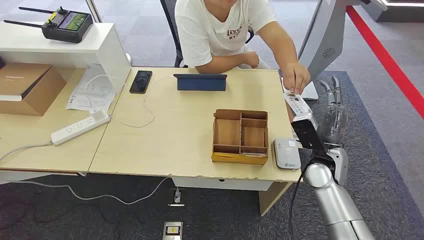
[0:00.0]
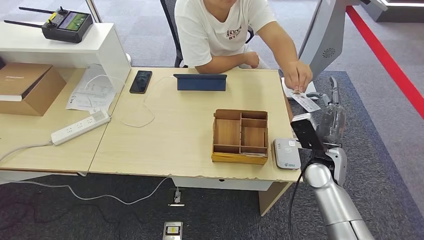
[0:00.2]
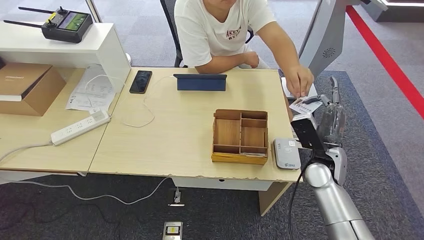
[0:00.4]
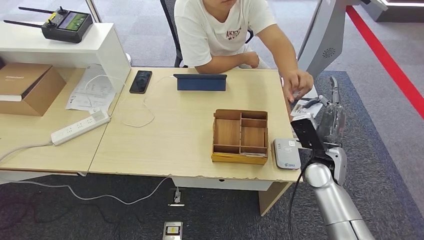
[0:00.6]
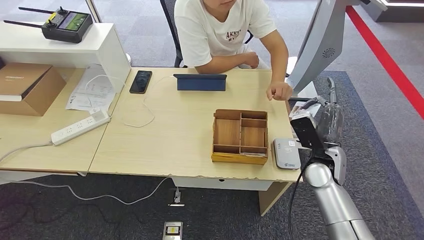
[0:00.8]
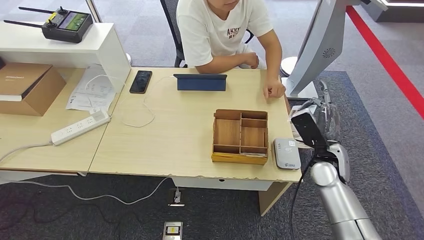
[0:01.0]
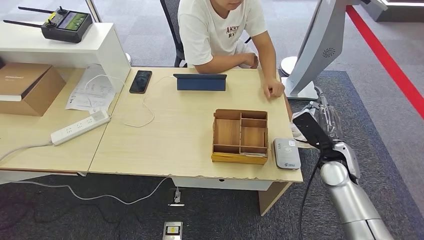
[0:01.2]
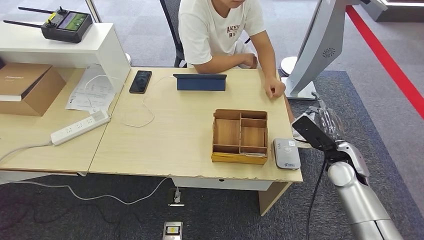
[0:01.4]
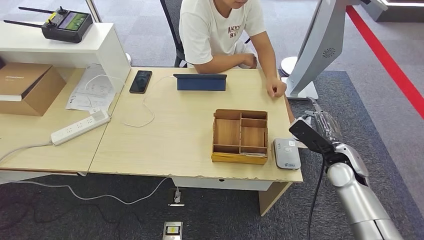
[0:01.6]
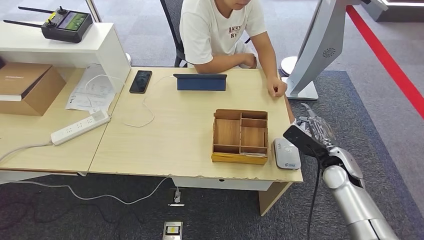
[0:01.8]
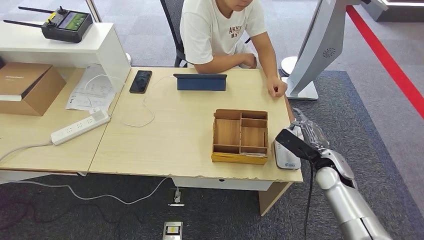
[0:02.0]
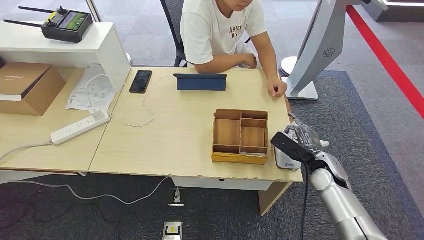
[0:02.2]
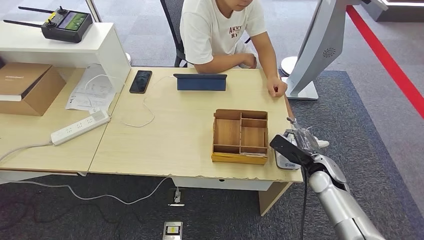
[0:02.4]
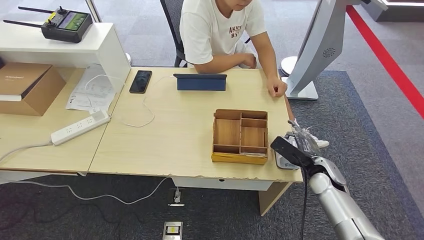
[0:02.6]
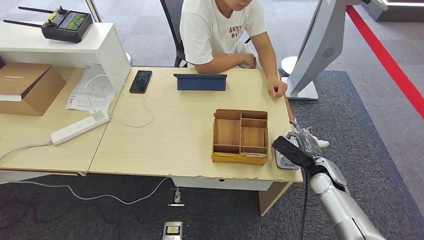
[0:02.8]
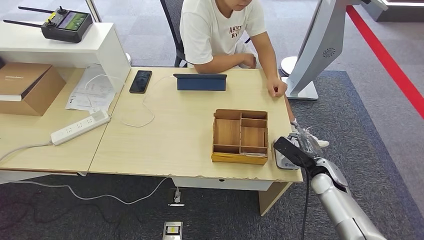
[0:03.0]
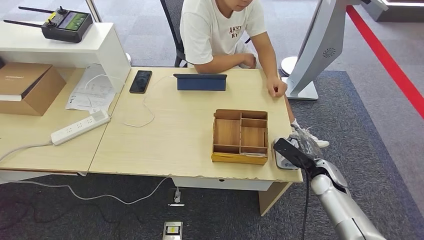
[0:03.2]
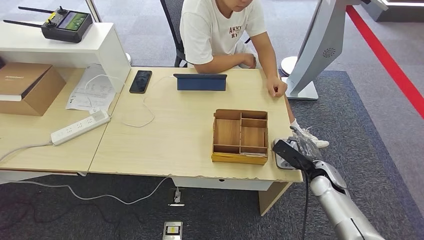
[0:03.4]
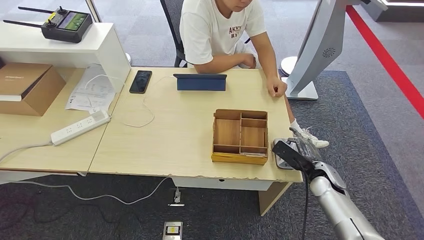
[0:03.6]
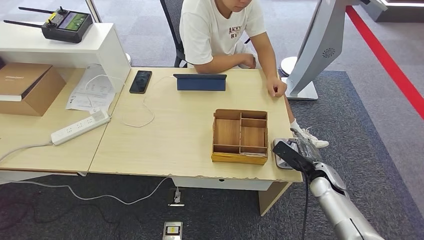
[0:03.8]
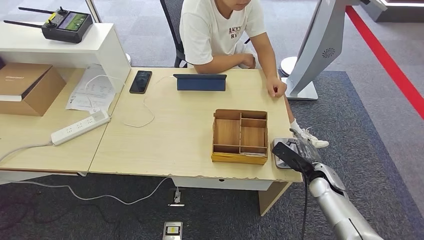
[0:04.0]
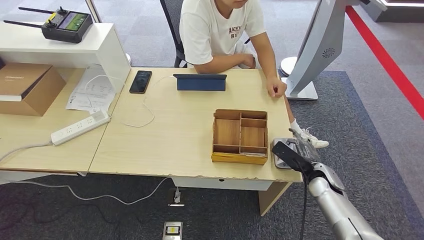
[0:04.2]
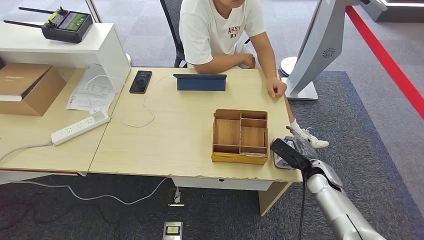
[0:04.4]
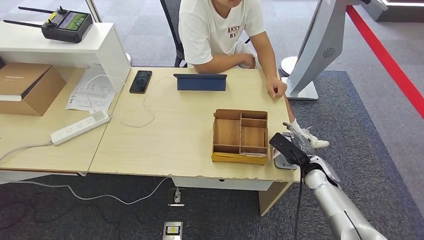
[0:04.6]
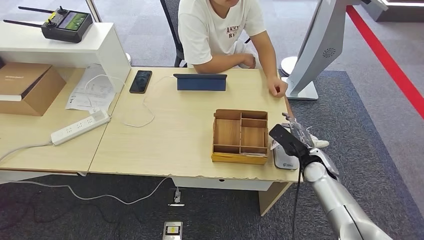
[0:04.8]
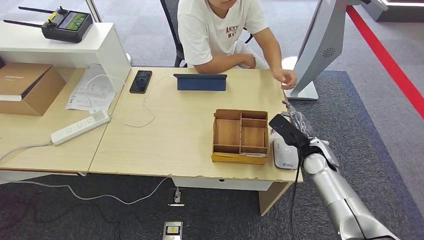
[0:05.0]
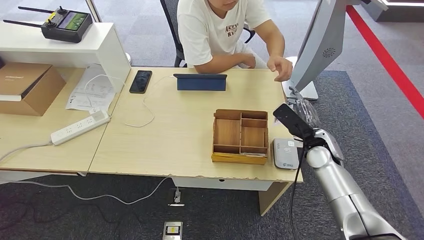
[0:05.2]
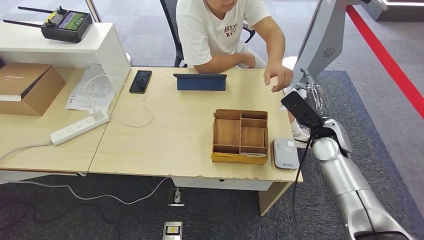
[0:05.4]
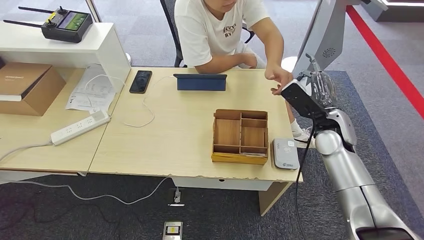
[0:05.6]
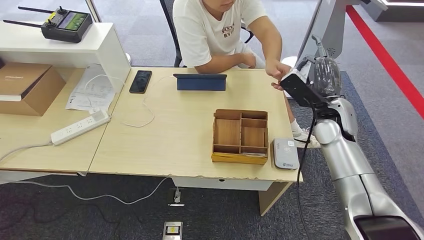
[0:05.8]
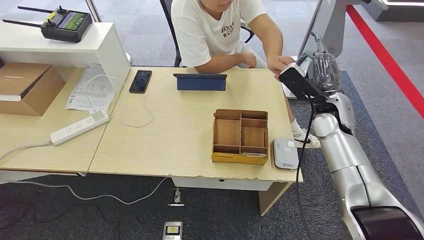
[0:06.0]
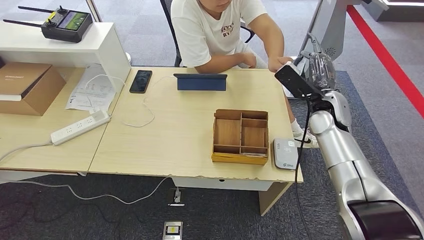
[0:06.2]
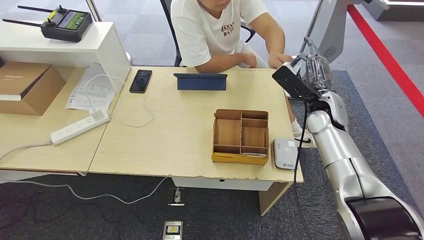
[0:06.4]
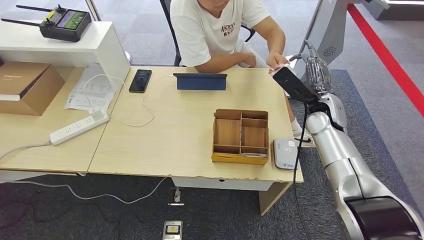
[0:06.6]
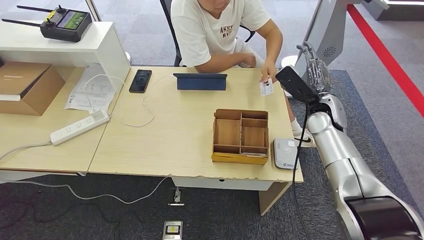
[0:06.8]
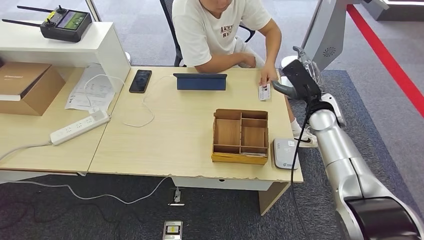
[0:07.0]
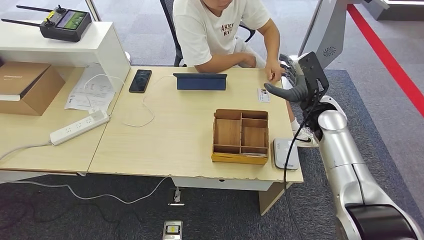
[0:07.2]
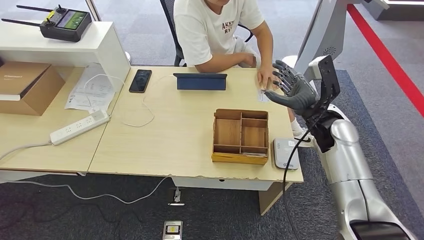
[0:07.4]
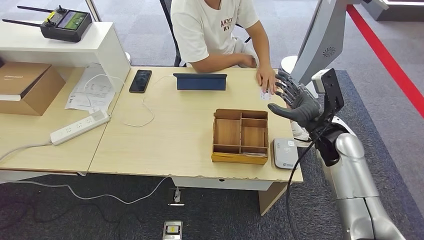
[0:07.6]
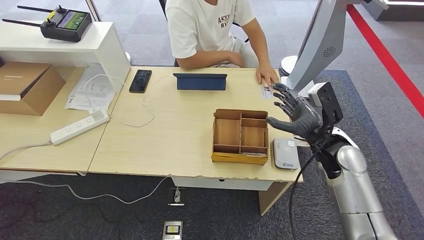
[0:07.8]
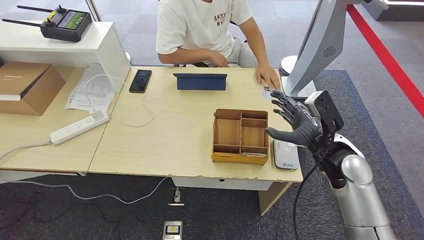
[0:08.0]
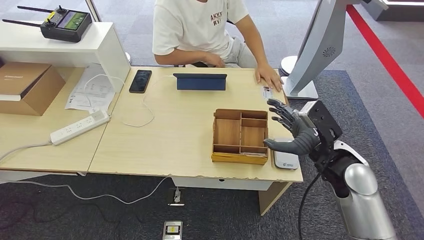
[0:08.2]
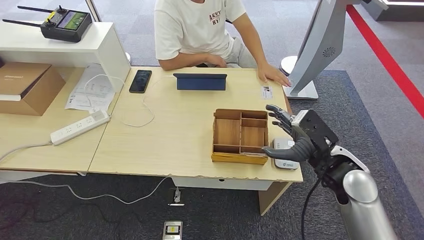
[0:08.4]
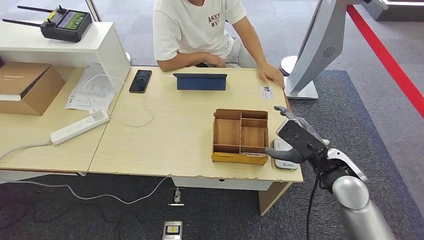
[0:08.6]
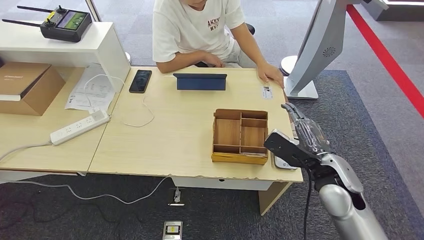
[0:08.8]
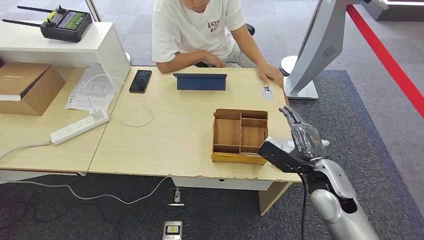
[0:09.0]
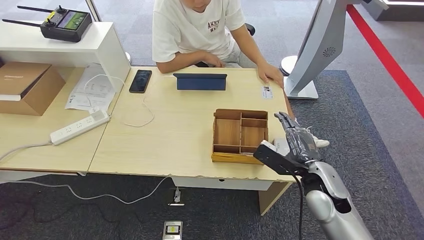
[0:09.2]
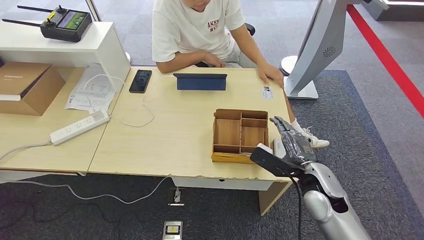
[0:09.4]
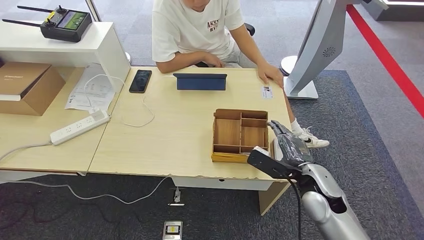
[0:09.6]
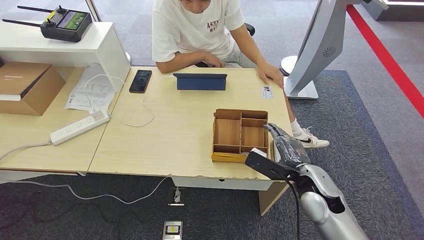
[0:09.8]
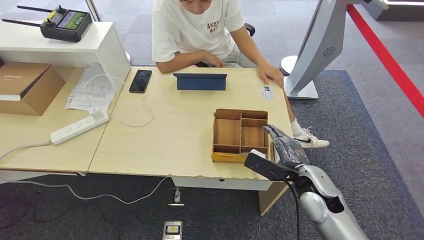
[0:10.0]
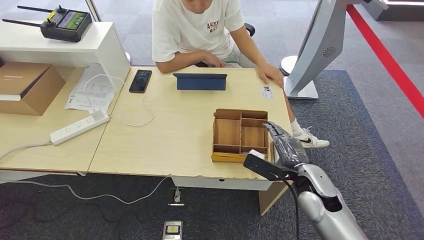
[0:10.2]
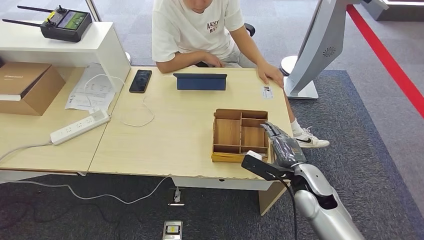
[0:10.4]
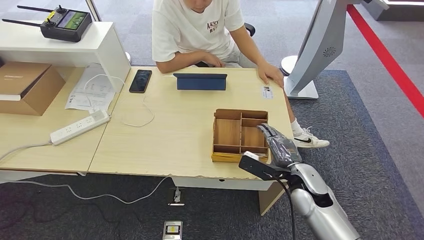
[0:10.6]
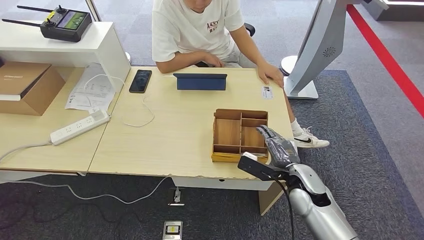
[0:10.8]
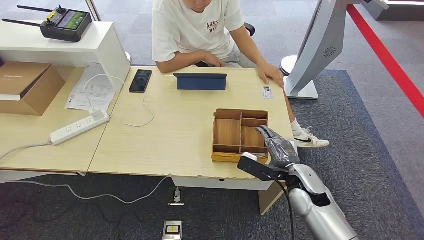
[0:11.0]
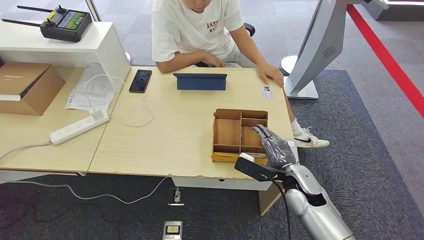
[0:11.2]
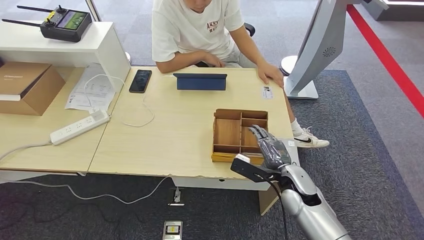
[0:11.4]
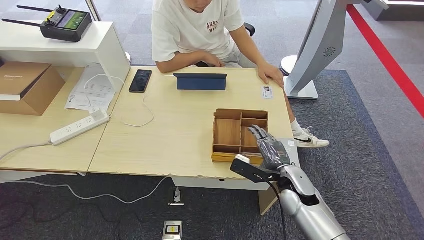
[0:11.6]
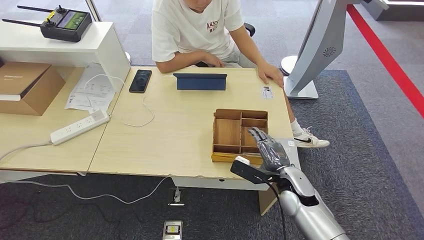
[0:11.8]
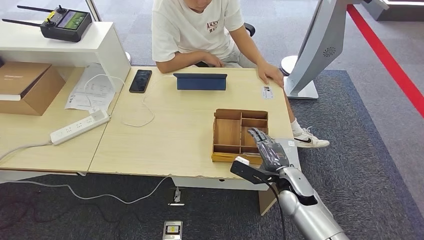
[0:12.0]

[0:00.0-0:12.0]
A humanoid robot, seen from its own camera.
Step, 0:00.0 to 0:01.4: Take the ID card from the person's hand.
Step, 0:01.6 to 0:05.0: Place the ID card on the card reader.
Step, 0:05.2 to 0:07.4: Hand the ID card to the person.
0:01.6 to 0:03.0: The right hand travels downward by about 5 cm.
0:03.0 to 0:04.4: The hands stay close to where they were, moving slightly.
0:04.4 to 0:06.0: The right hand shifts approximately 20 cm upward and forward.
0:06.0 to 0:07.6: The right hand ends up some 5 cm from where it was.
0:07.6 to 0:09.0: The right hand heads backward, covering roughly 10 cm.
0:09.0 to 0:10.4: The right hand changes place by about 5 cm.
0:10.4 to 0:12.0: There are only small adjustments of the hands.

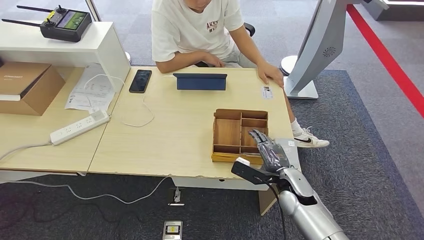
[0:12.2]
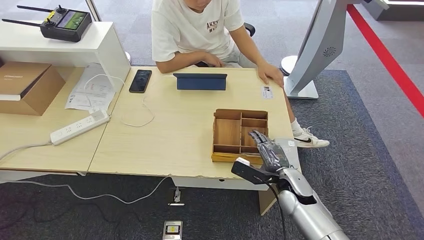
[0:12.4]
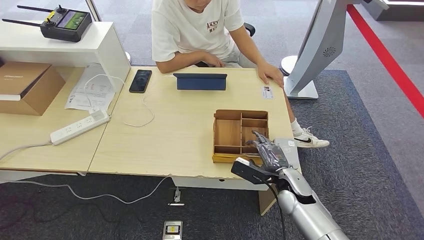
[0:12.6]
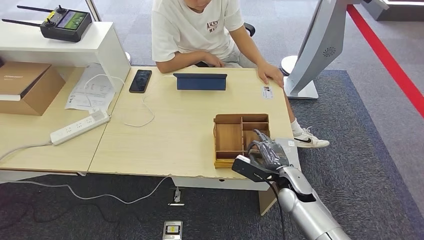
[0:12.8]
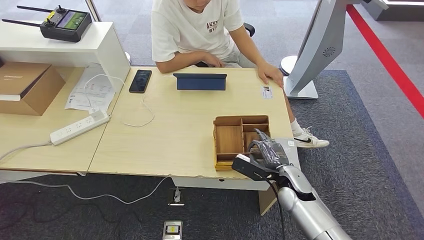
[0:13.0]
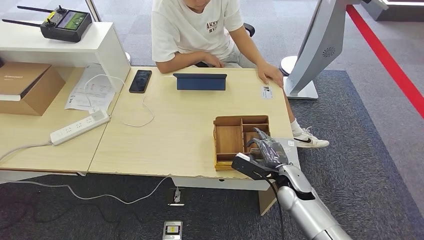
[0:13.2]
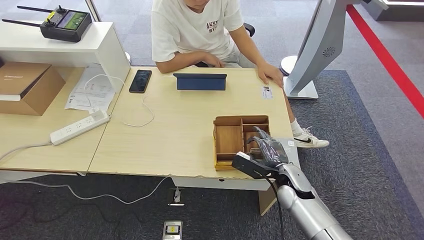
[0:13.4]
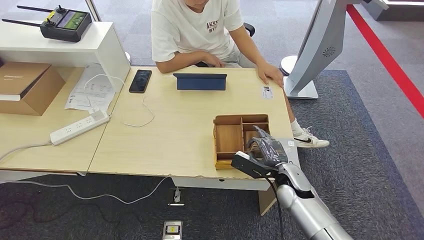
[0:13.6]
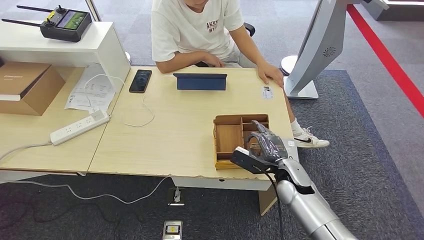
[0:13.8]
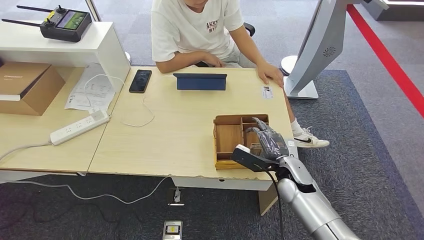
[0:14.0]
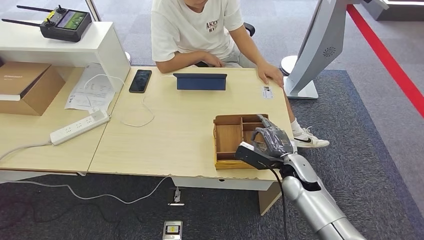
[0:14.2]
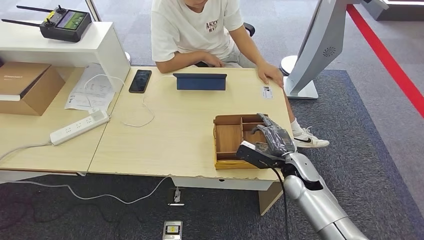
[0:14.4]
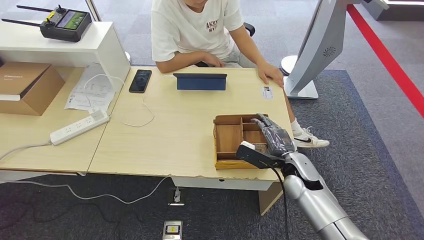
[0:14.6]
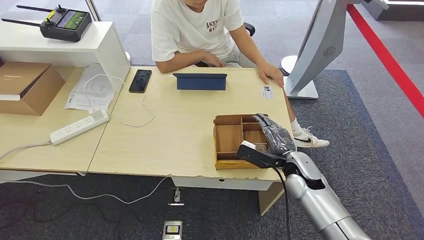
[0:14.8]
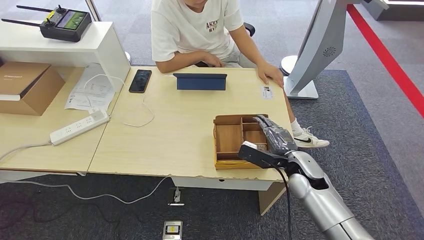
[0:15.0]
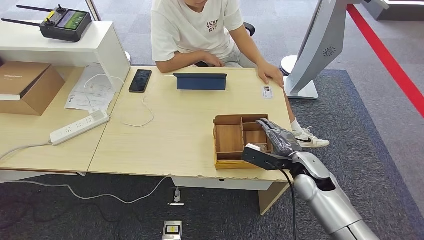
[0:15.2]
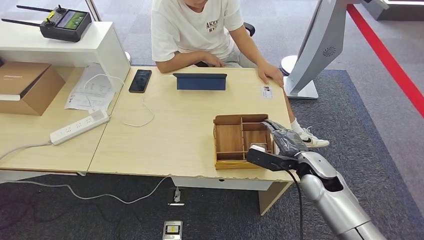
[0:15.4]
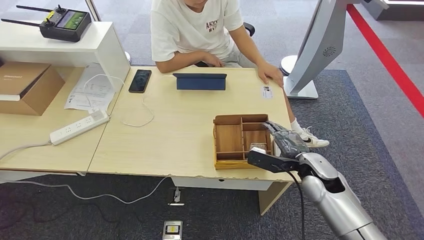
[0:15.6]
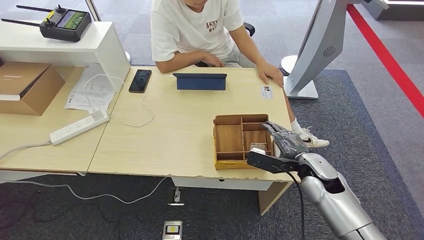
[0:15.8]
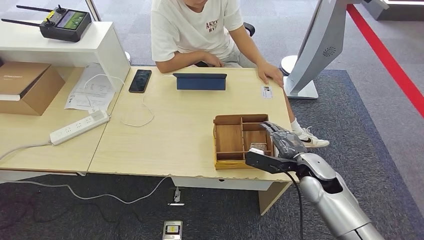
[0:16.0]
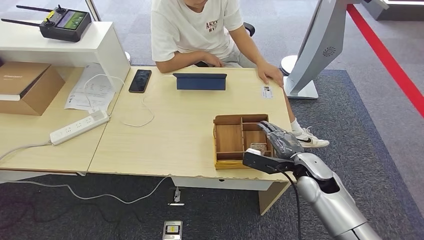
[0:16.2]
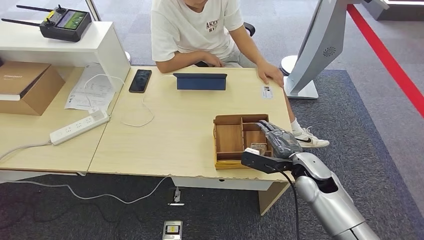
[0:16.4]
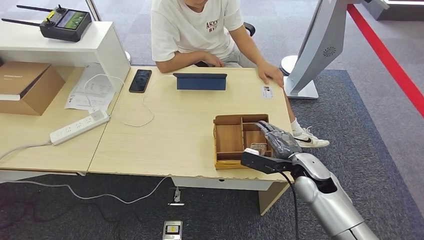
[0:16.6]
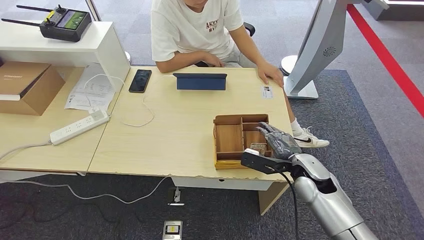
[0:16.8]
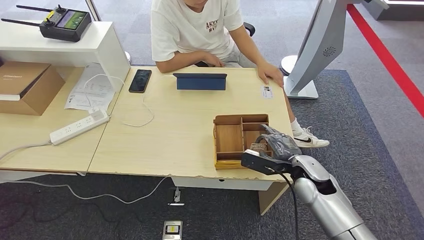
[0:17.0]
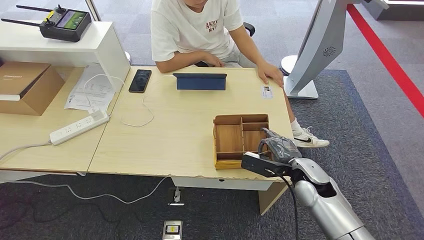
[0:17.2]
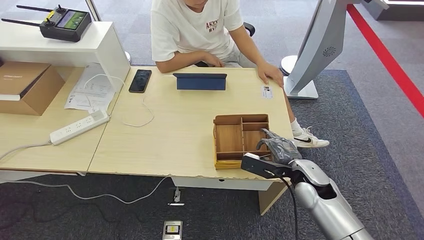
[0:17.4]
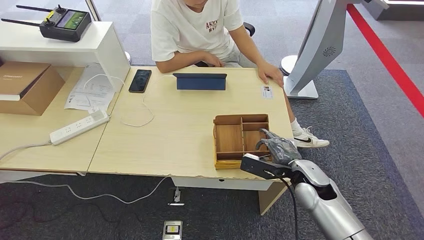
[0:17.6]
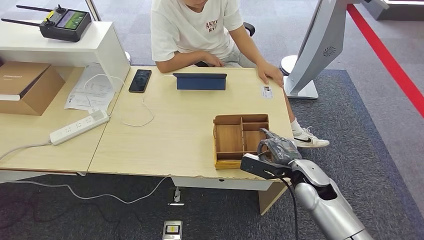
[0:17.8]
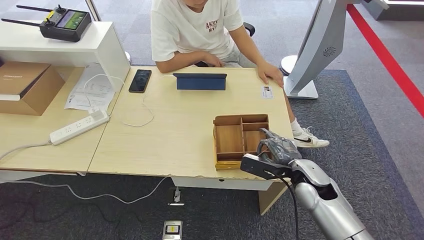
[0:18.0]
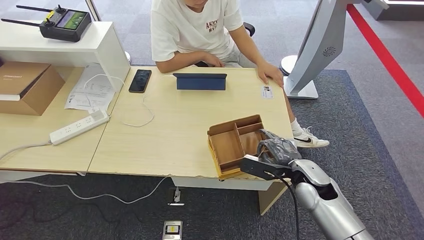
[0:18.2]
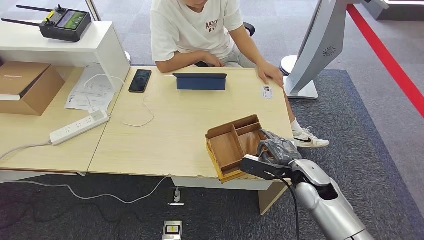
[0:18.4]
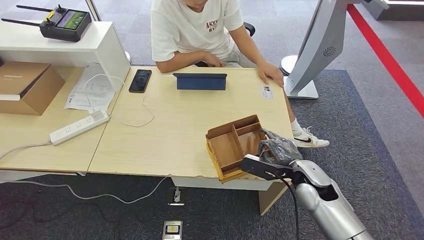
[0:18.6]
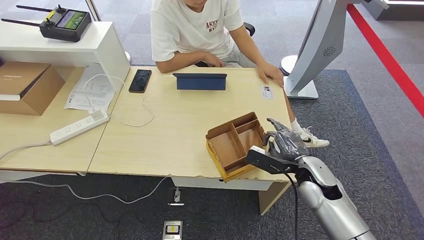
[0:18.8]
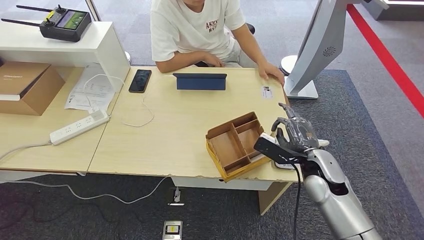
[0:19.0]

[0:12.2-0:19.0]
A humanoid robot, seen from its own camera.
0:12.2 to 0:13.6: Both hands stay about where they are.
0:13.6 to 0:15.0: The right hand changes place by approximately 5 cm.
0:15.0 to 0:19.0: The hands make only small movements.
